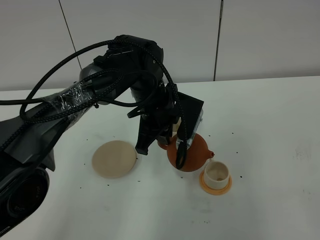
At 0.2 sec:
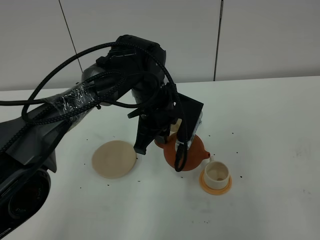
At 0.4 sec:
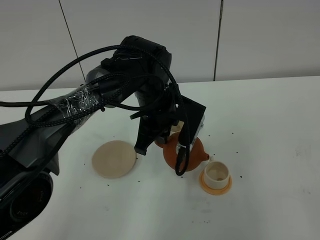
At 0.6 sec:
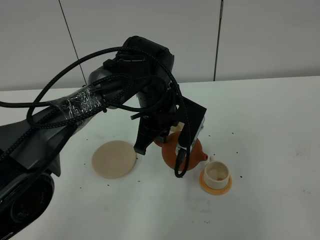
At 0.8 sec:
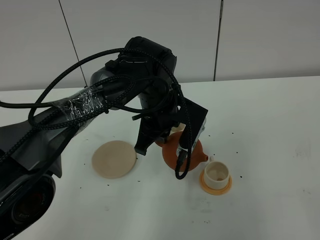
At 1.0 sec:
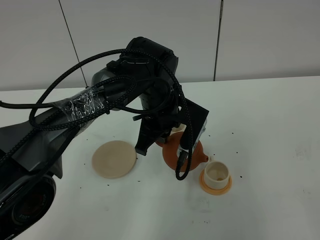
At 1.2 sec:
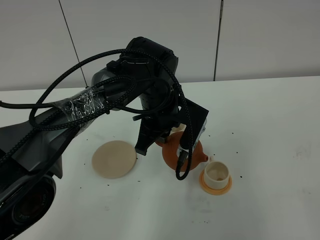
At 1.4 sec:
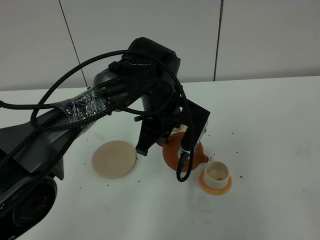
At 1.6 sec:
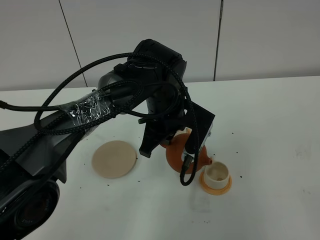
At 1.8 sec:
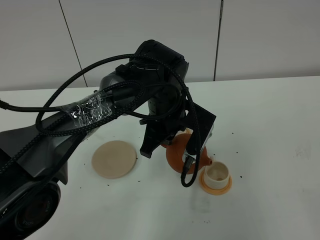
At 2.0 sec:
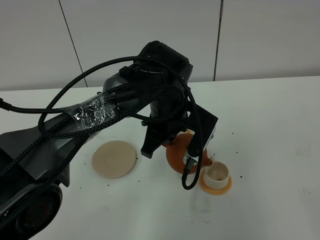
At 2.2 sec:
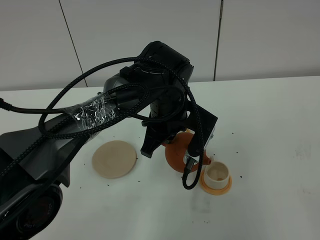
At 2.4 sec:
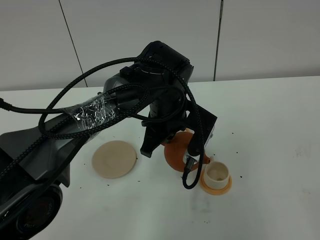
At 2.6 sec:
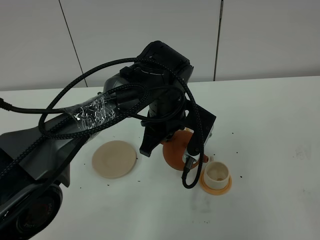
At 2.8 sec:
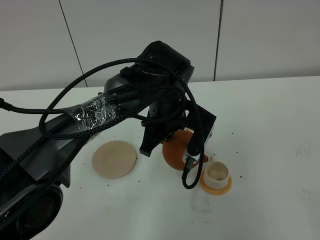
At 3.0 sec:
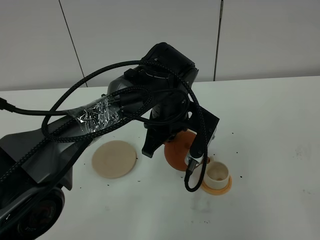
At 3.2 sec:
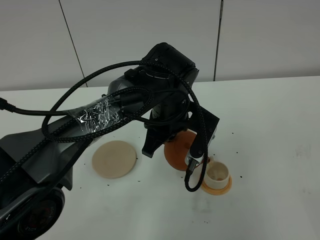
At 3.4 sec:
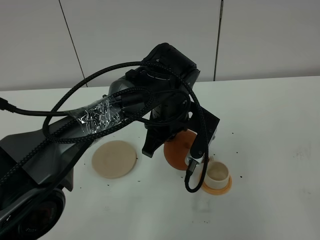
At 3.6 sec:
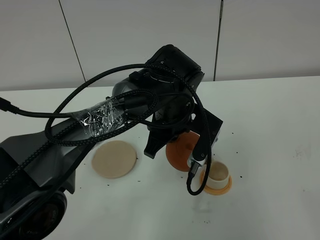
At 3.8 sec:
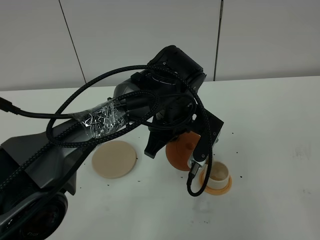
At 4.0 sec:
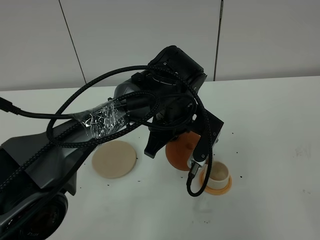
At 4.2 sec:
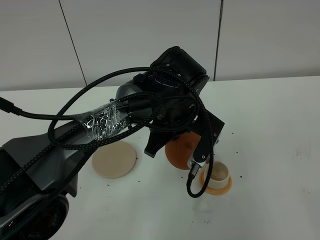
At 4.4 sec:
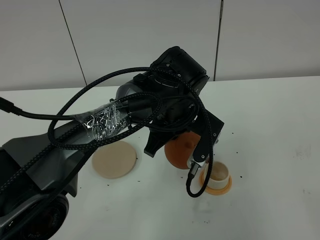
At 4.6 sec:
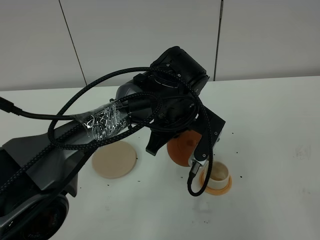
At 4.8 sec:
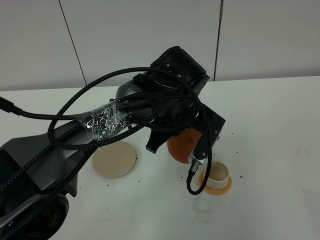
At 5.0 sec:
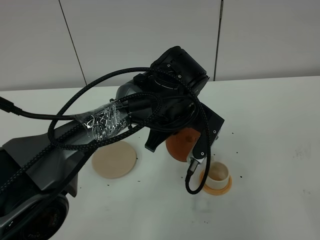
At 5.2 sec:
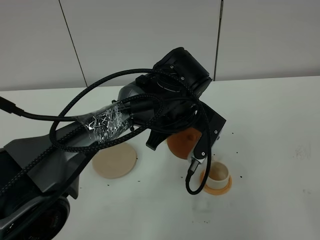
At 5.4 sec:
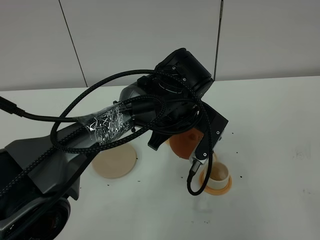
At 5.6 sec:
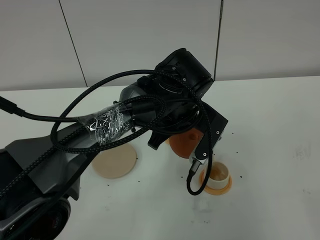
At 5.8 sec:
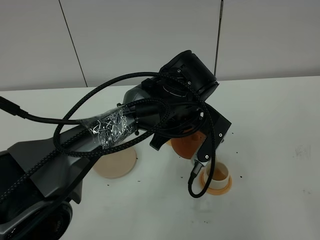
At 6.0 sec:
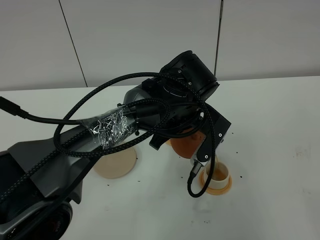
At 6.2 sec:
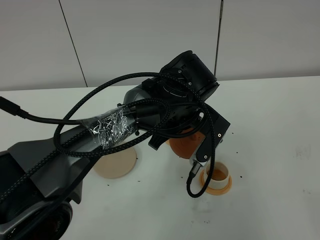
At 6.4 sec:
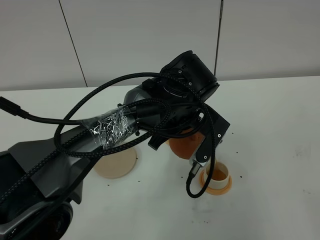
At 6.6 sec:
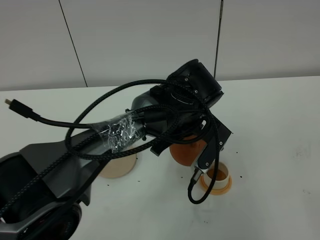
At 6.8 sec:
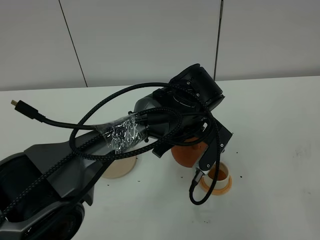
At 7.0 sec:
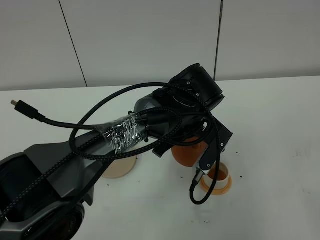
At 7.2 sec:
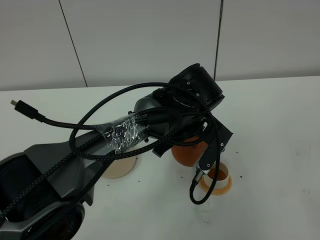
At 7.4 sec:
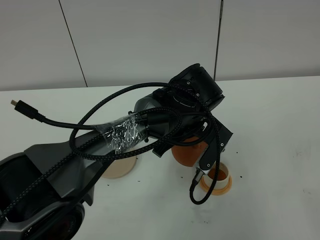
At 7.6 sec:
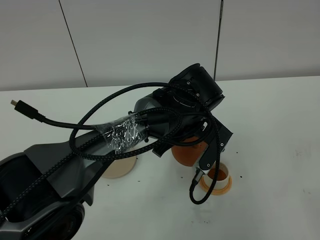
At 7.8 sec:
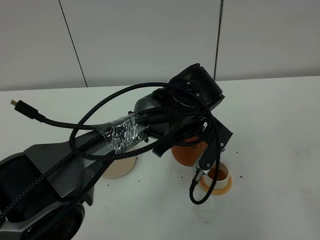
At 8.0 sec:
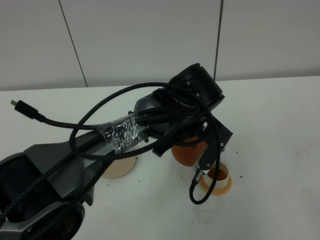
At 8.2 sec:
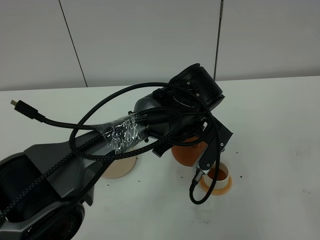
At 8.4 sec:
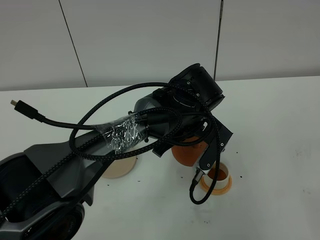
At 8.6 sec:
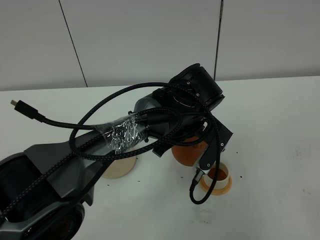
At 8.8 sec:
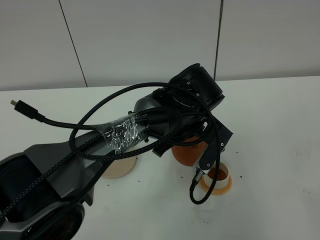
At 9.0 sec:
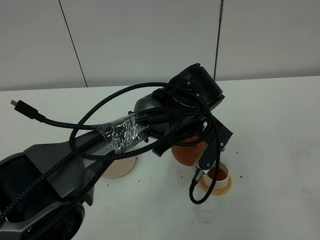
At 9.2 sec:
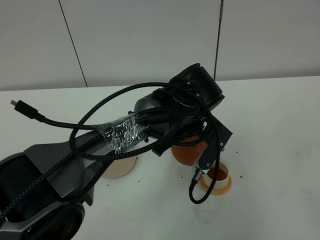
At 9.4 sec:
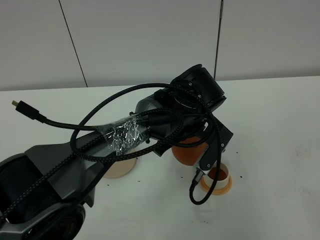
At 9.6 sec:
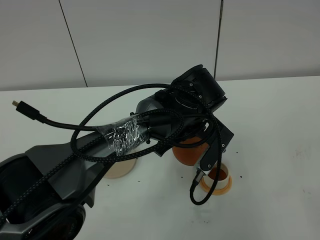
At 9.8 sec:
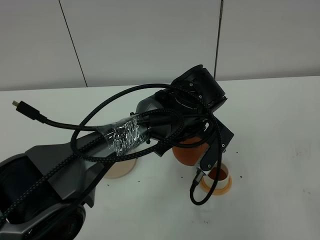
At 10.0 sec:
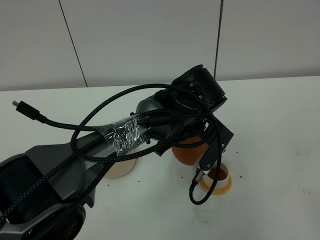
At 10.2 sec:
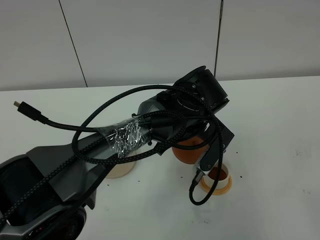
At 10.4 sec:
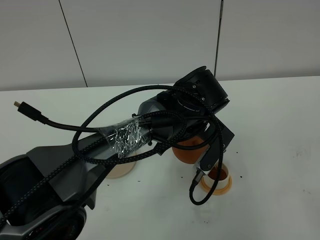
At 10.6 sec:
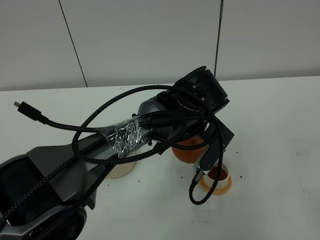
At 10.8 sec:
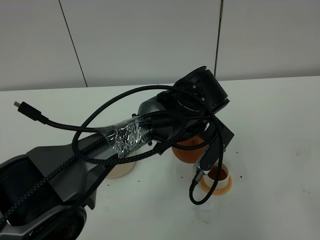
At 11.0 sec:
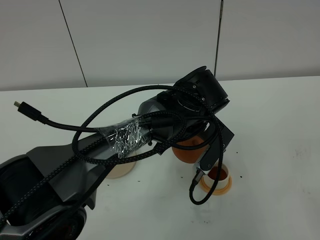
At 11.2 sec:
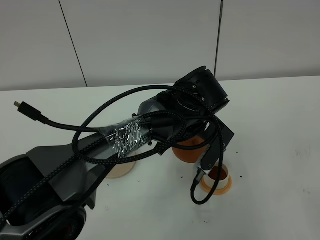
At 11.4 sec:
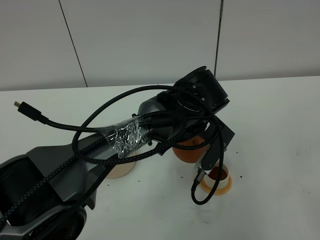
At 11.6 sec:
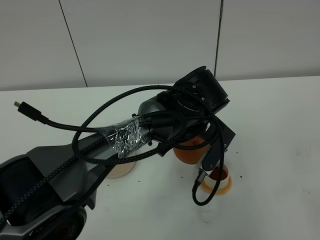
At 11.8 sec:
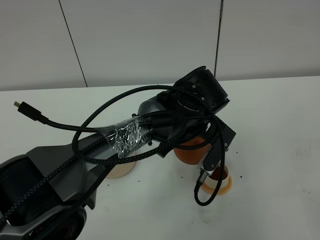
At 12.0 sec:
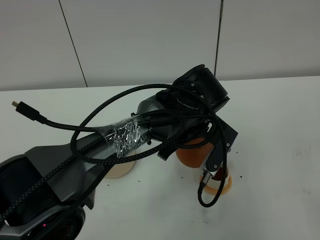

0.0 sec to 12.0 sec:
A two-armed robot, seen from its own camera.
Task of the whole recording: grasp the brown teapot and pour the tea into the two white teacups one by one, put the brown teapot back in its original place.
0.0 sec to 3.0 sec: The grippers stay close to where they were, moving slightly.
3.0 sec to 7.6 sec: The grippers move only a little.
7.6 sec to 10.4 sec: Both grippers stay about where they are.
10.4 sec to 12.0 sec: There are only small adjustments of the grippers.

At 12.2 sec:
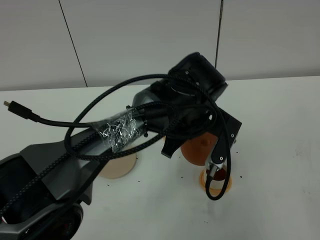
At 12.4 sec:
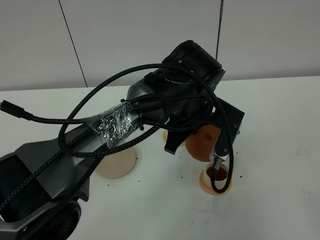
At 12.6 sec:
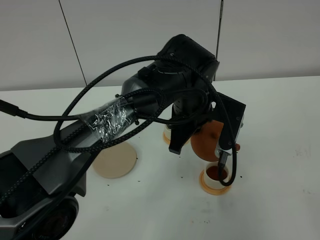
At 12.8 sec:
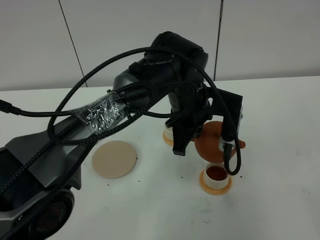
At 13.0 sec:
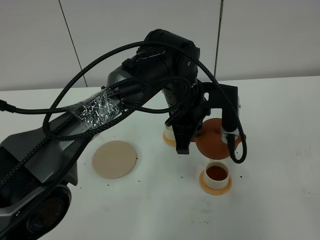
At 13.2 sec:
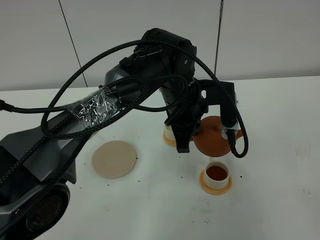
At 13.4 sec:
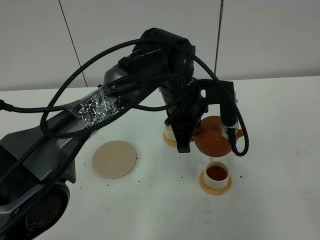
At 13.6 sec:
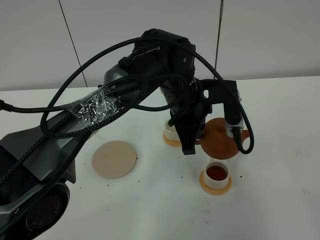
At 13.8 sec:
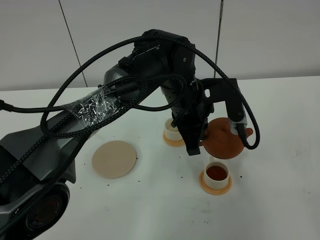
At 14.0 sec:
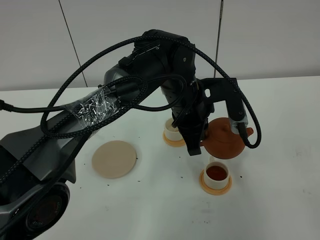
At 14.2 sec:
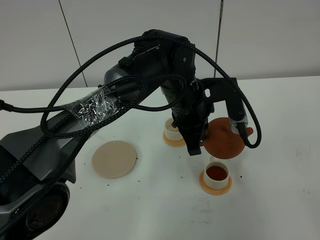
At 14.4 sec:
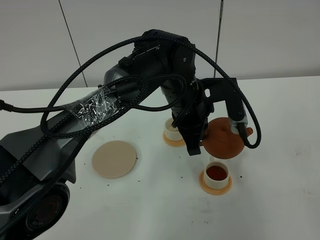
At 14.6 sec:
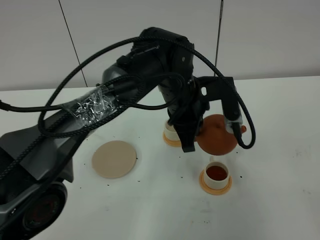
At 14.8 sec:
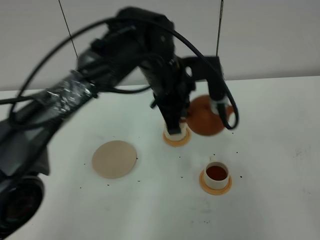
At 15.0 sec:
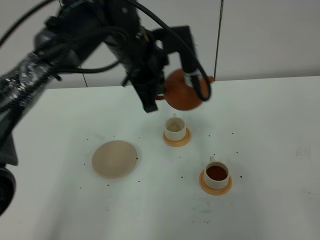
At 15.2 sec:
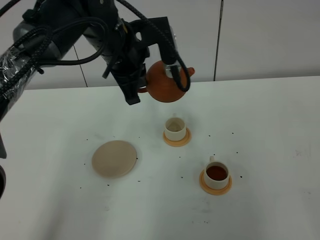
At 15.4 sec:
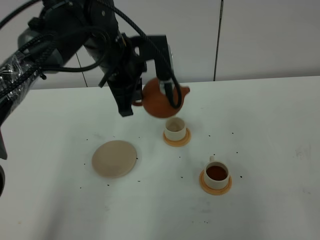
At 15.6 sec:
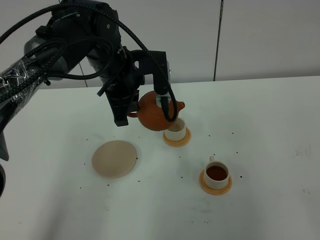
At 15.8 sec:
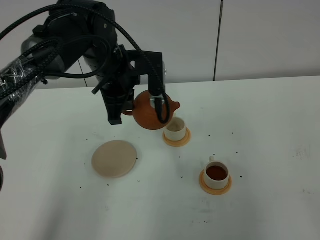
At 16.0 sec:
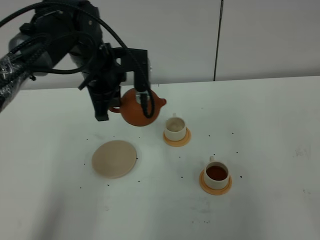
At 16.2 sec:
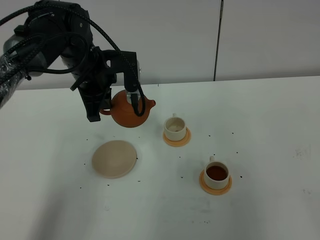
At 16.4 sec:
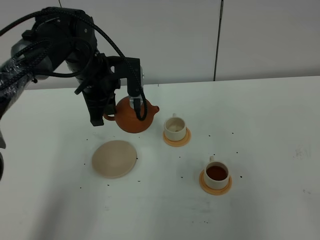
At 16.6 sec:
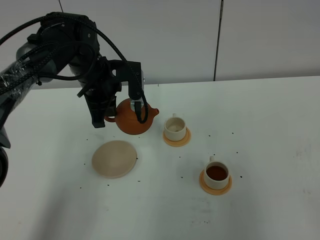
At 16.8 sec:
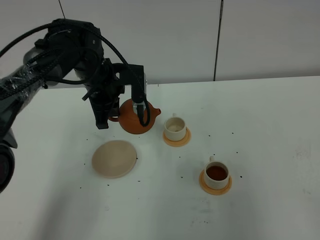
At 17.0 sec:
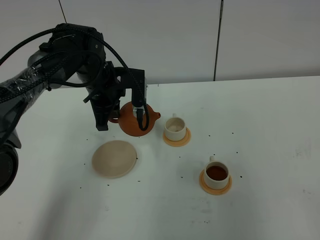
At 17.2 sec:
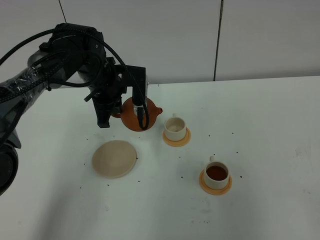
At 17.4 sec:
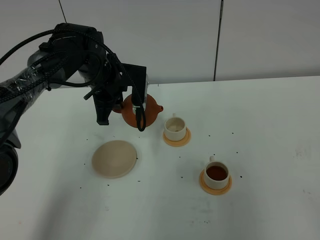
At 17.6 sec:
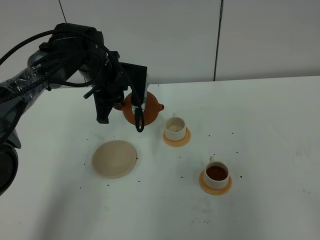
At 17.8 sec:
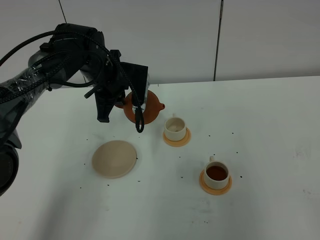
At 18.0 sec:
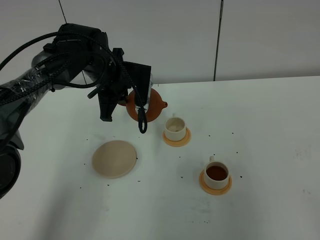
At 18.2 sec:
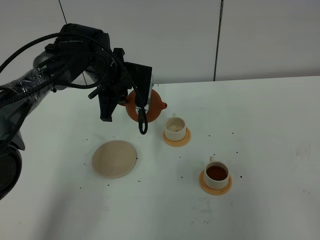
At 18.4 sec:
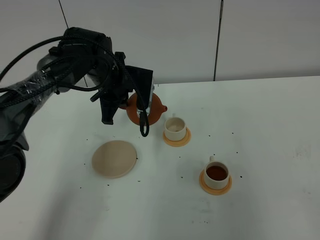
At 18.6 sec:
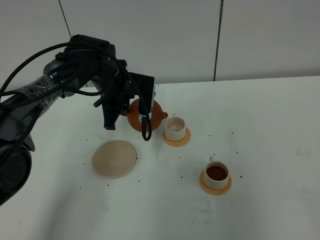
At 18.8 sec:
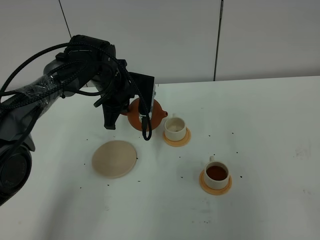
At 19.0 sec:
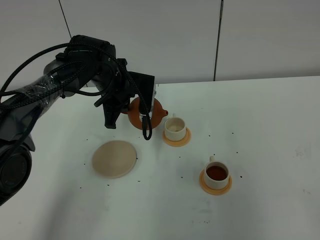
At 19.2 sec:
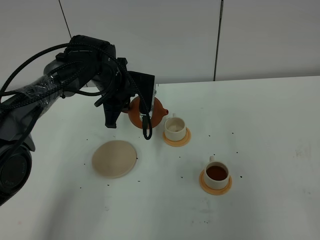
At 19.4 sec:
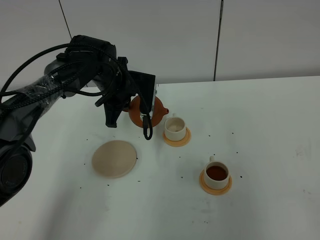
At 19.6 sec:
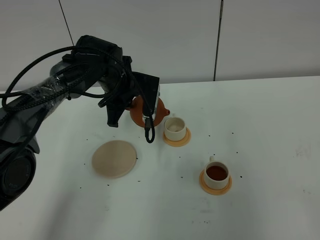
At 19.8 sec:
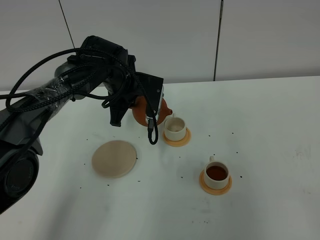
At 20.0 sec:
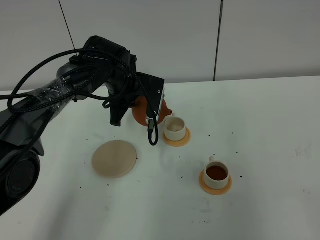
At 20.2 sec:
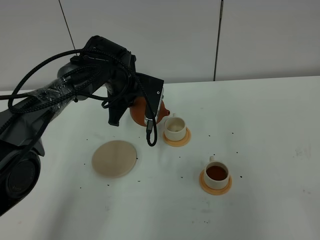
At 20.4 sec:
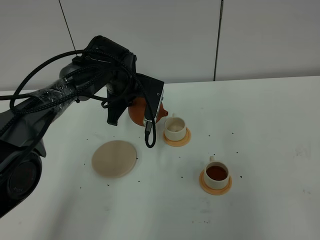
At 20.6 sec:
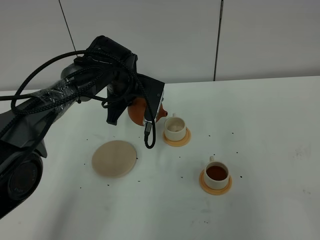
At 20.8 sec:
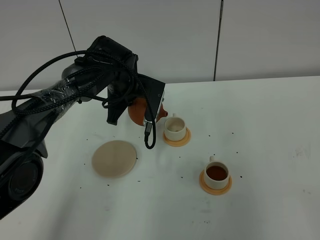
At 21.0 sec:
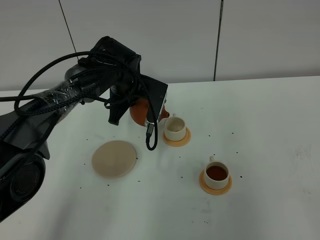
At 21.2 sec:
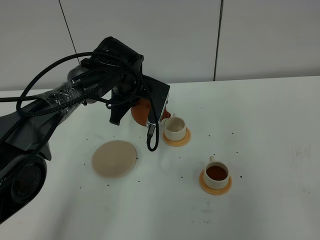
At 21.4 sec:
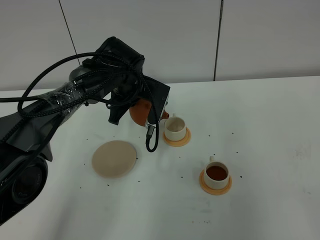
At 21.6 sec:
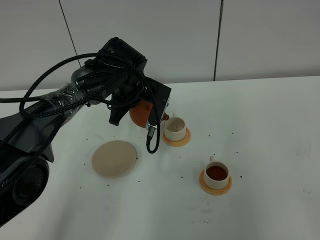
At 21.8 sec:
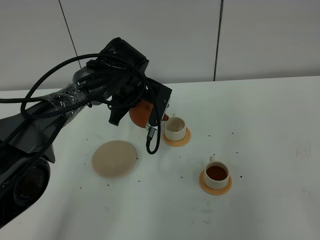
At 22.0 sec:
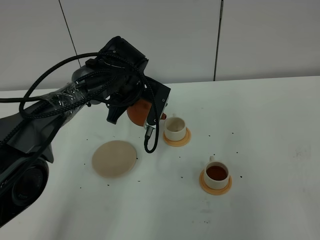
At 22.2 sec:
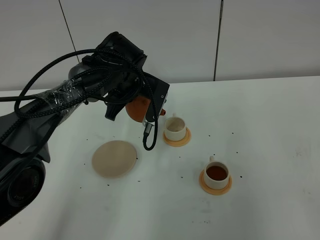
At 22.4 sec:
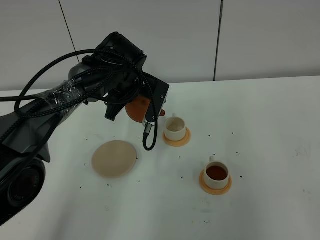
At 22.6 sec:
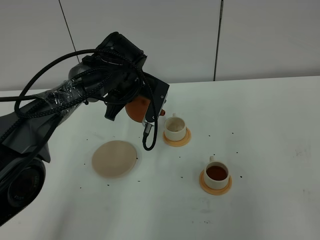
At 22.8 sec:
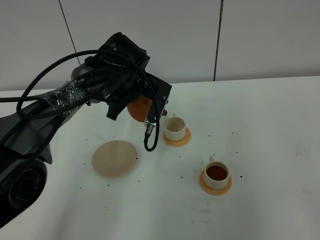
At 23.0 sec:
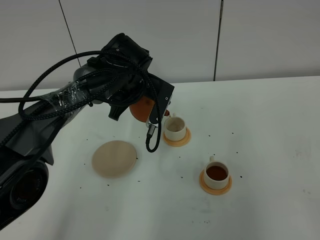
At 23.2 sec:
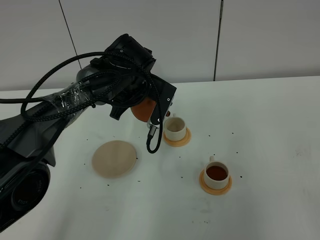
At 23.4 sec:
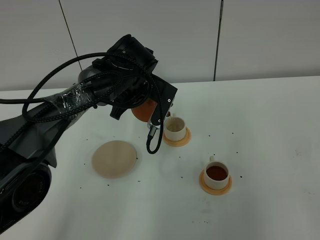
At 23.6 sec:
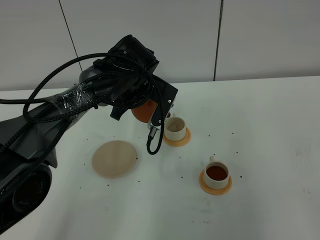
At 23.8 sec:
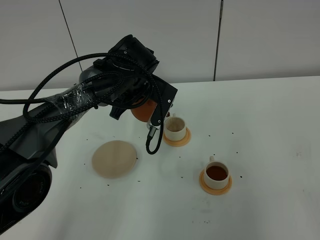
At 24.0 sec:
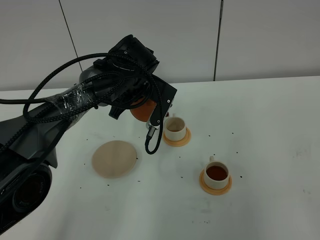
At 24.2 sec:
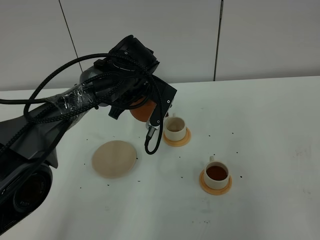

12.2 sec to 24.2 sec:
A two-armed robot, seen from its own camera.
Task of the whole recording: grasp the brown teapot and pour the tea into the two white teacups one by one, put the brown teapot back in its original place.
13.8 sec to 15.2 sec: The left gripper moves to the left and upward, roughly 15 cm.
15.2 sec to 16.6 sec: The left gripper is displaced downward and to the left by approximately 10 cm.
16.6 sec to 18.2 sec: The grippers make only small movements.
18.2 sec to 21.2 sec: The grippers move only a little.
21.2 sec to 24.2 sec: There are only small adjustments of the grippers.
